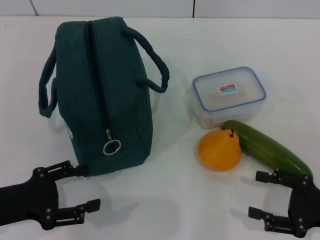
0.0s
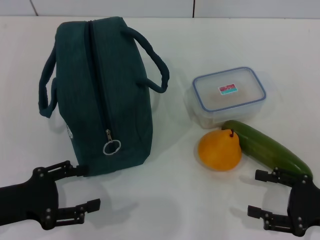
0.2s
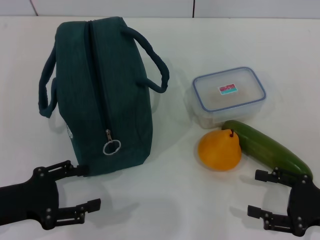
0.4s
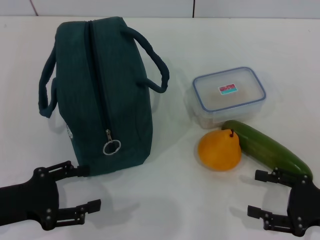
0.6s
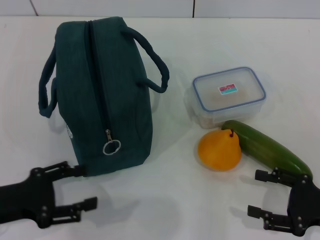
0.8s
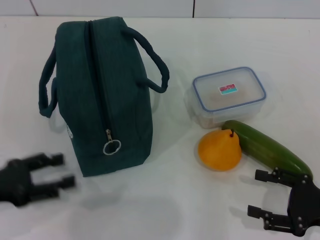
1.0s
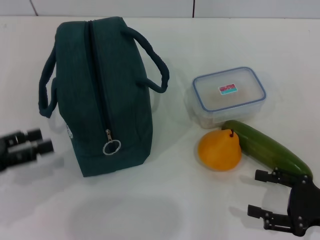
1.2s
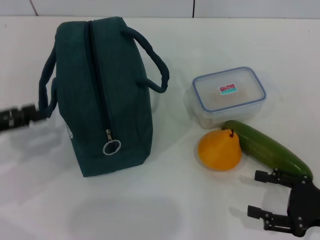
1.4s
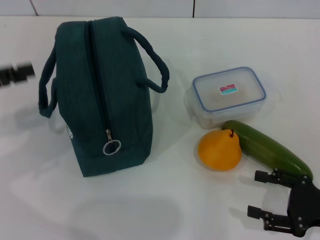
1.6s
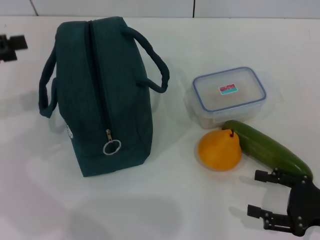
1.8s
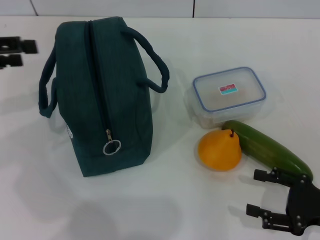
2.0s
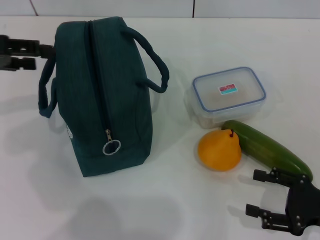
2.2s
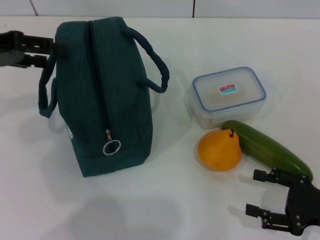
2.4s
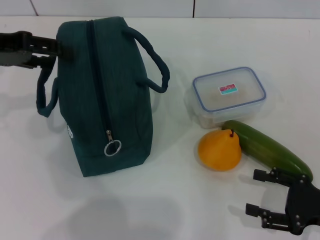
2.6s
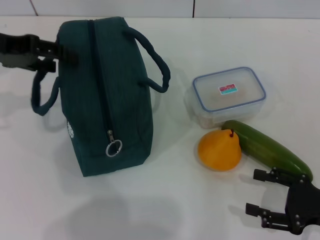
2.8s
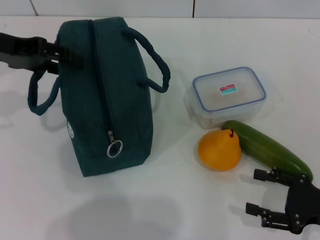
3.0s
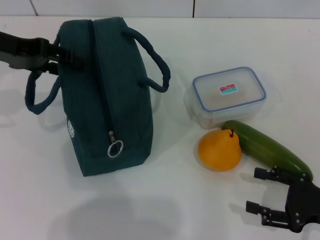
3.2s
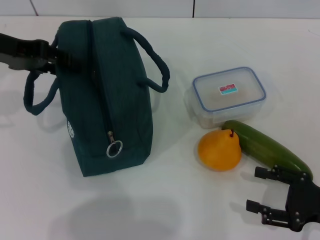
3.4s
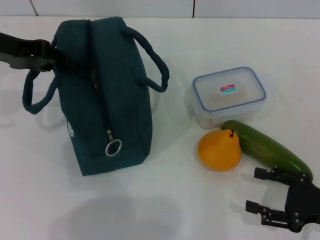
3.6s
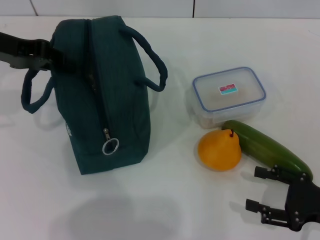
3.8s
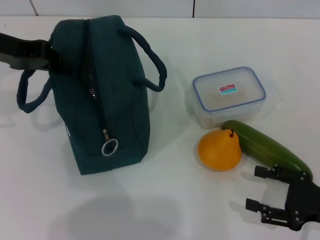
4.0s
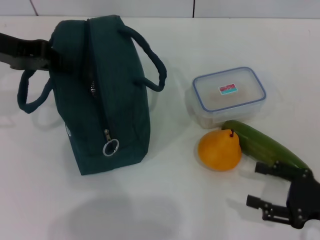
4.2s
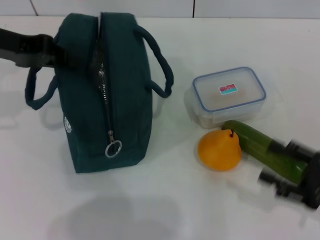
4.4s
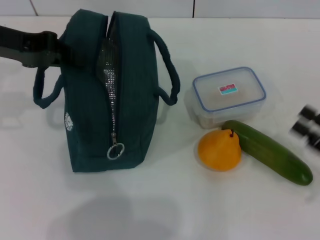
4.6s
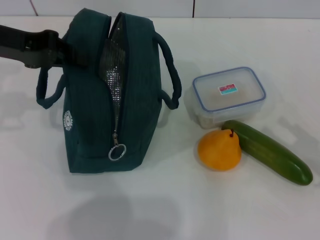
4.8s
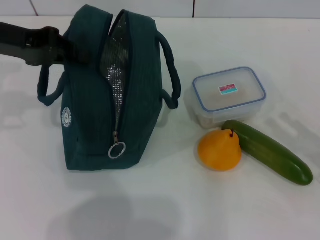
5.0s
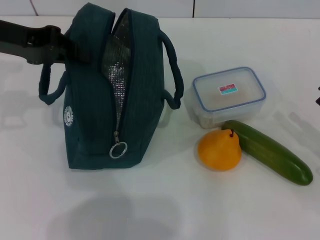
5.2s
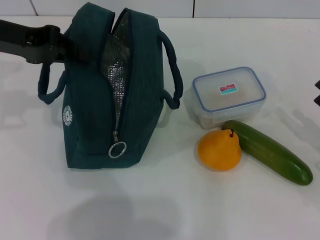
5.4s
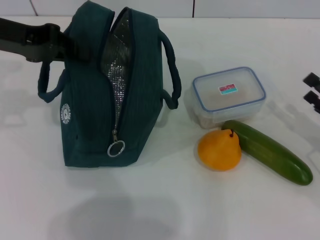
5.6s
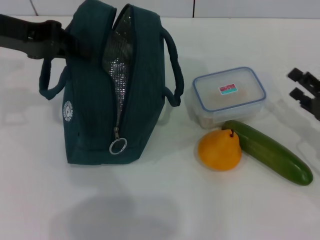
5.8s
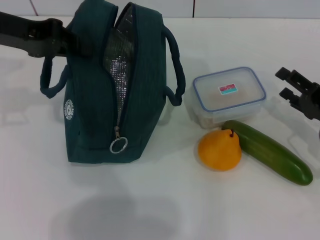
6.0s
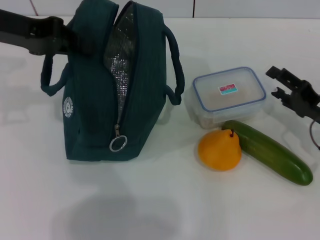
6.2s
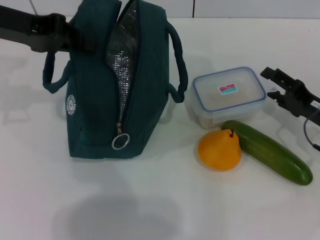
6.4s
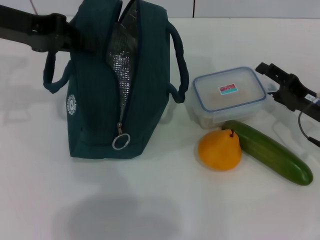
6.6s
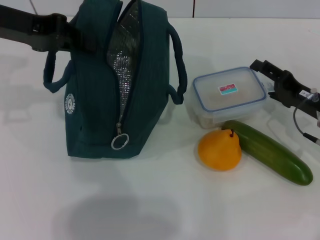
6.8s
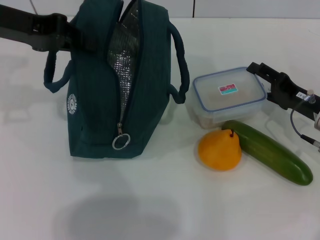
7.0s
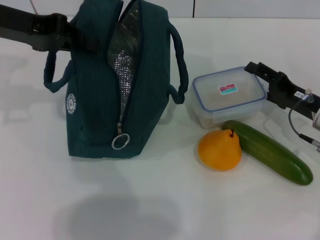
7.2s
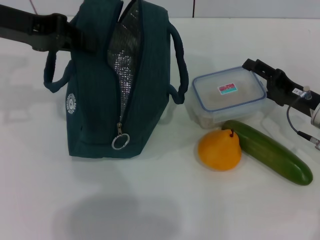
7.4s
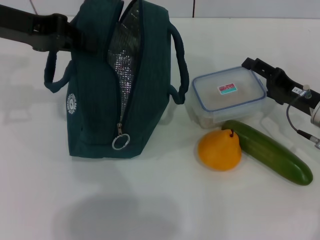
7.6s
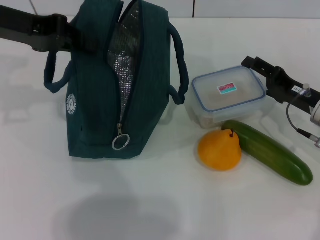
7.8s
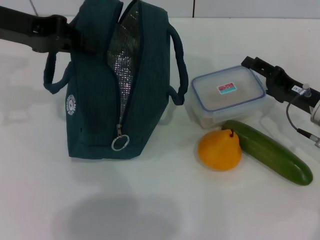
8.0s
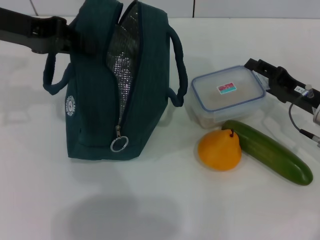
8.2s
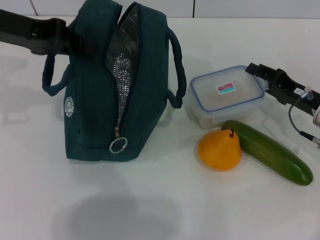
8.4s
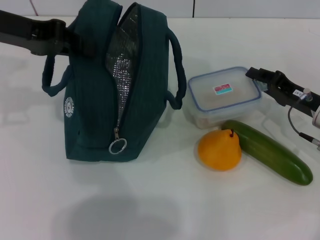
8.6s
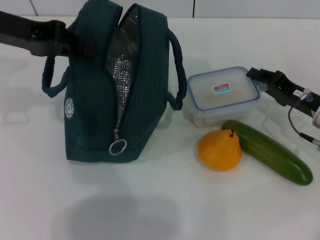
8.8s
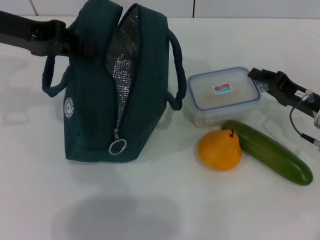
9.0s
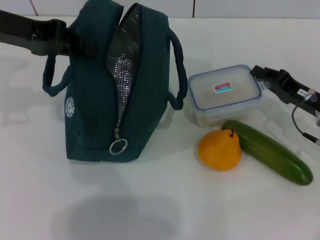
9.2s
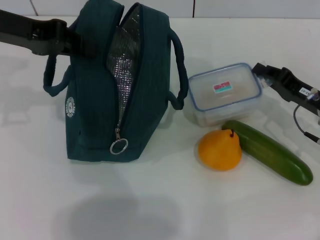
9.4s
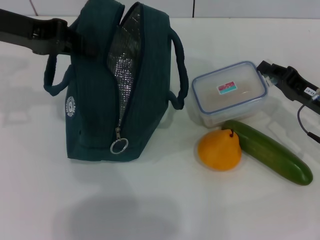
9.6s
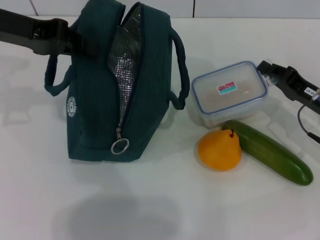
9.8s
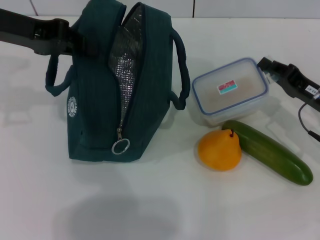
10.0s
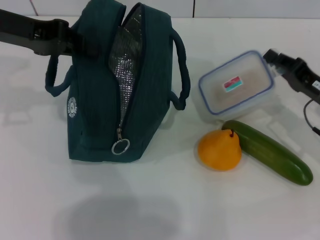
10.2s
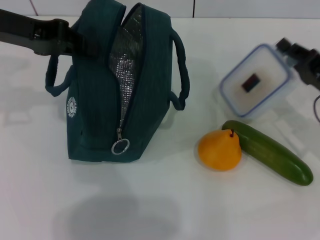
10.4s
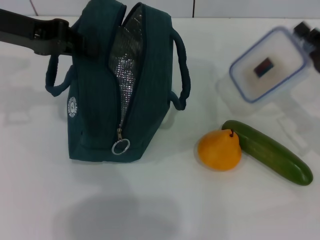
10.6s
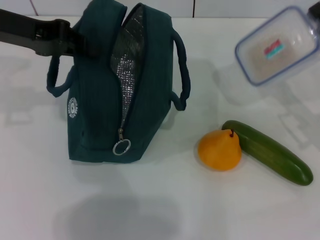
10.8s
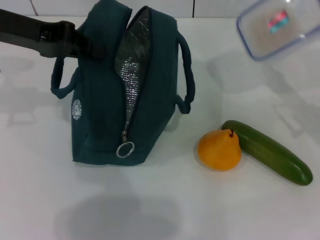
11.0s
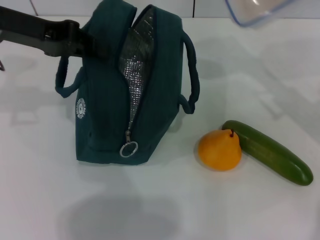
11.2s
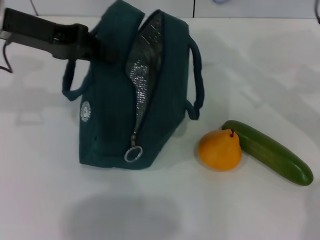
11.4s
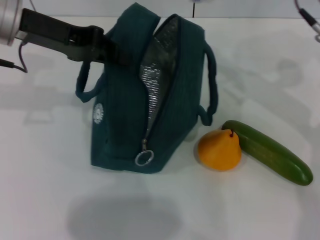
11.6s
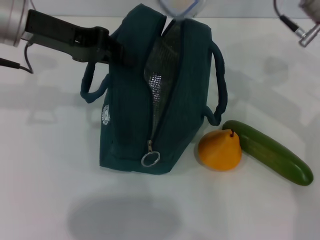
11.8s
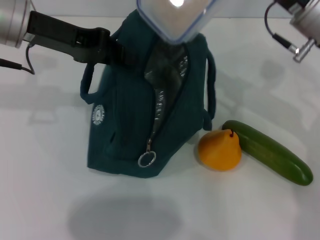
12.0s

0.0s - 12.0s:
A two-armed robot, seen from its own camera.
Step, 0.0s - 4.4s: Hold the lunch bag with your left hand.
Step, 4.6s - 10.0s: Pick up the lunch box with your right hand.
0.0s - 1.6s: The left gripper heads upward, forward and to the left, covering roughly 15 cm.
1.6s - 3.0s: The left gripper moves forward, to the right and upward, approximately 15 cm.
3.0s - 4.4s: The left gripper closes up.
4.4s - 6.0s: The right gripper shifts some 10 cm forward.
6.0s - 7.6s: The right gripper shifts by some 5 cm.
7.6s - 9.0s: The right gripper closes up.
9.0s - 10.4s: There are only small adjustments of the grippers.
10.4s - 12.0s: The right gripper is displaced upward, to the left and forward by some 15 cm.

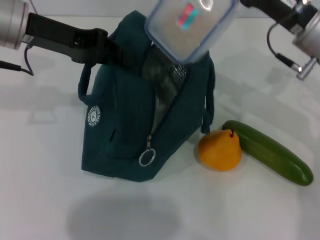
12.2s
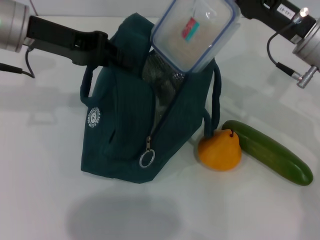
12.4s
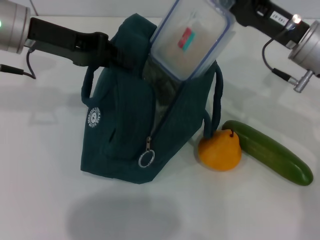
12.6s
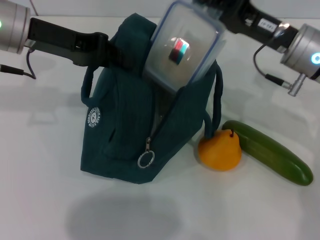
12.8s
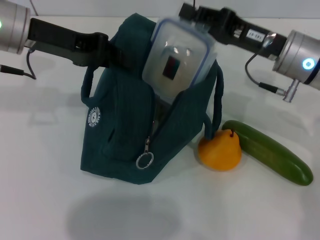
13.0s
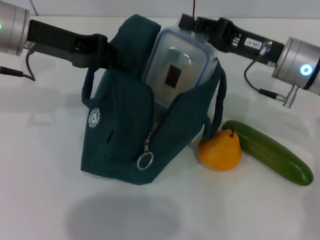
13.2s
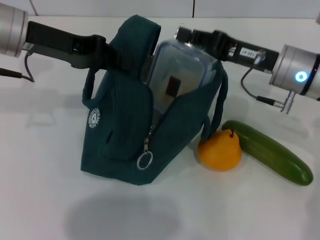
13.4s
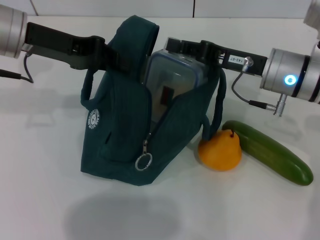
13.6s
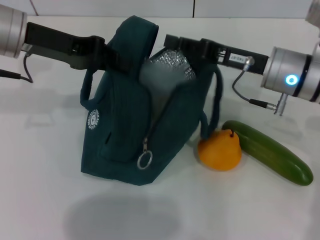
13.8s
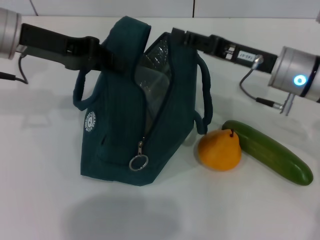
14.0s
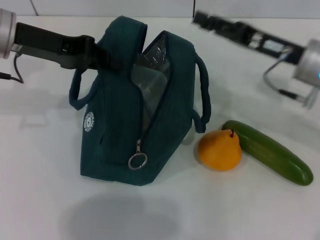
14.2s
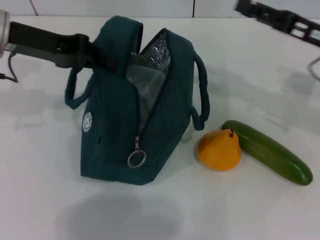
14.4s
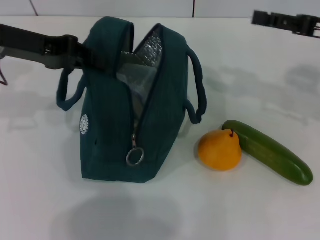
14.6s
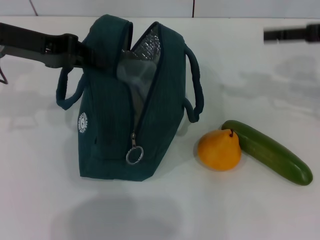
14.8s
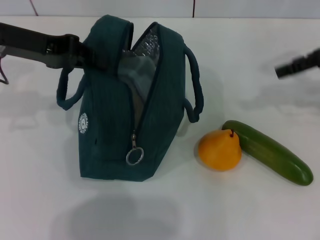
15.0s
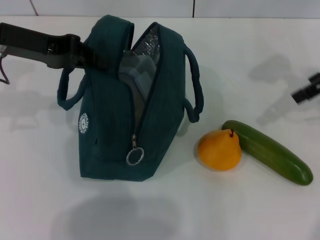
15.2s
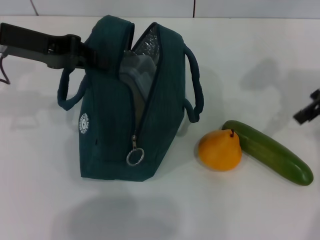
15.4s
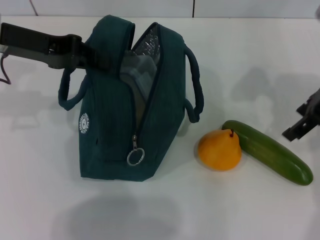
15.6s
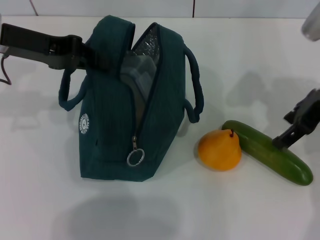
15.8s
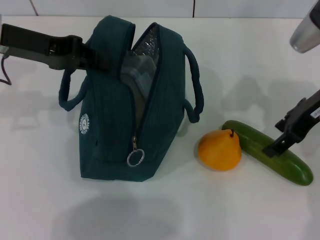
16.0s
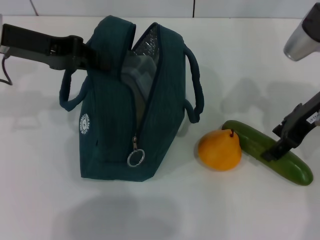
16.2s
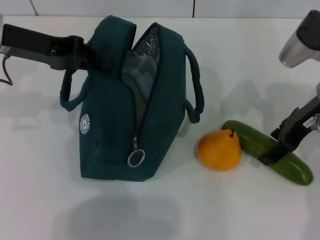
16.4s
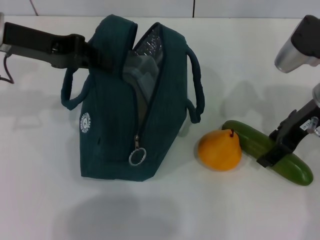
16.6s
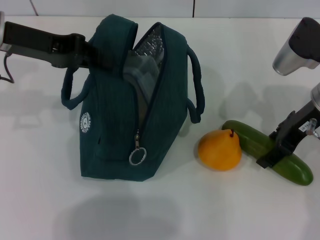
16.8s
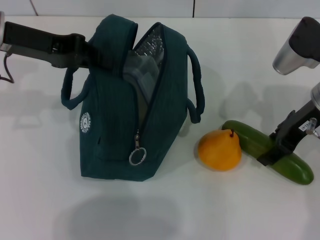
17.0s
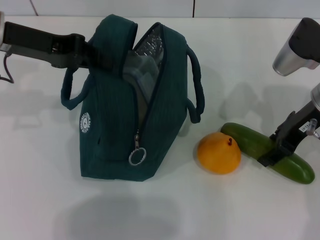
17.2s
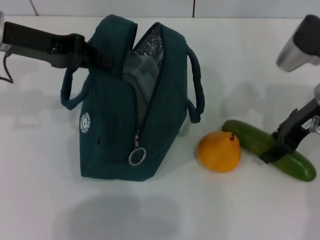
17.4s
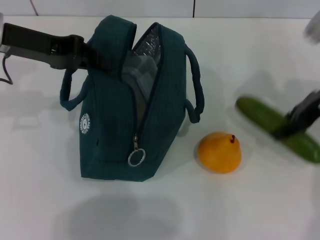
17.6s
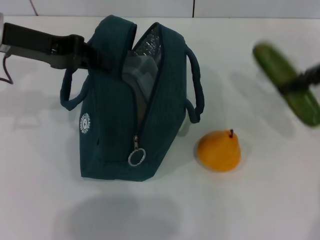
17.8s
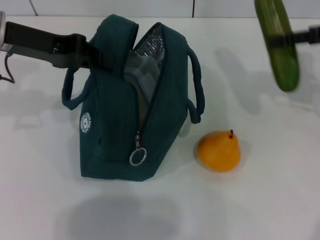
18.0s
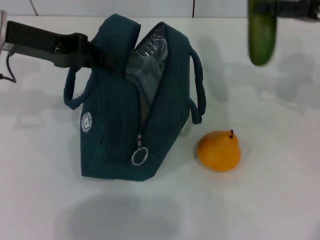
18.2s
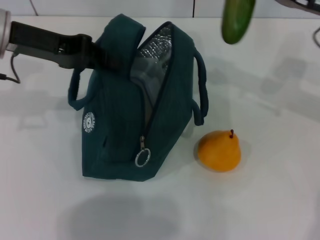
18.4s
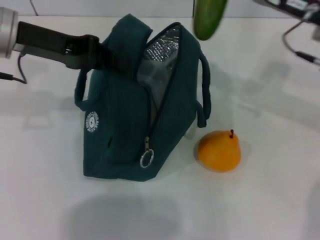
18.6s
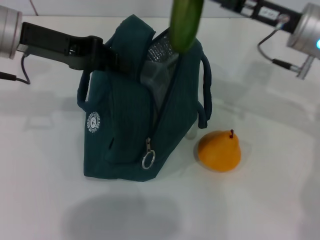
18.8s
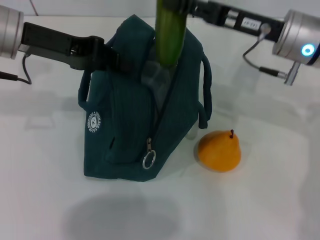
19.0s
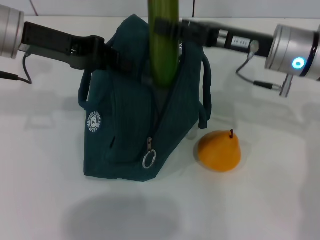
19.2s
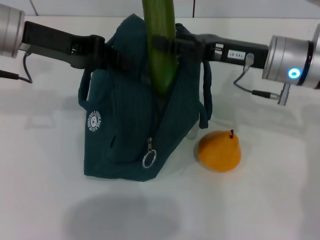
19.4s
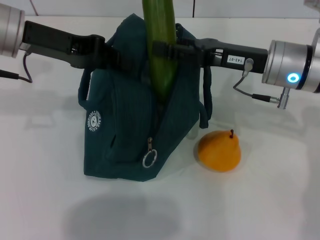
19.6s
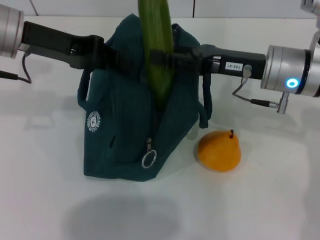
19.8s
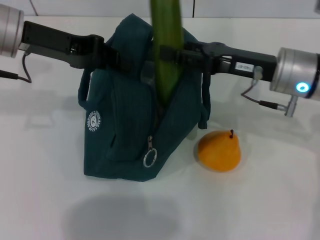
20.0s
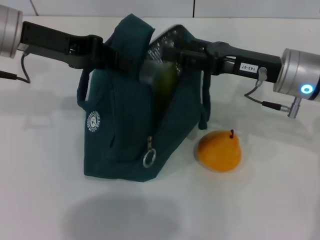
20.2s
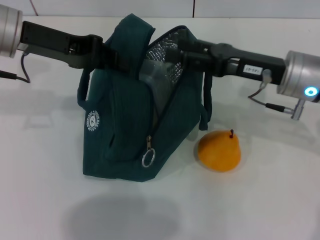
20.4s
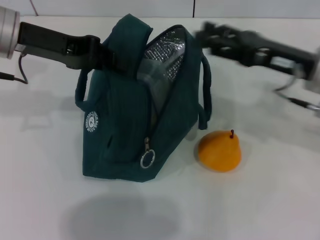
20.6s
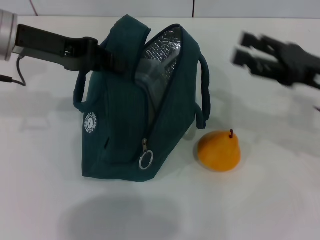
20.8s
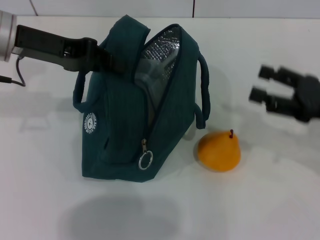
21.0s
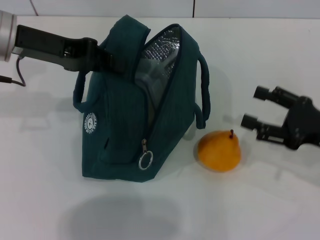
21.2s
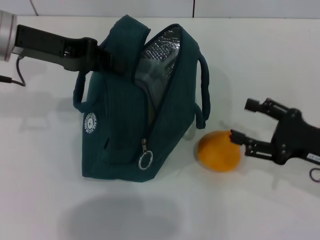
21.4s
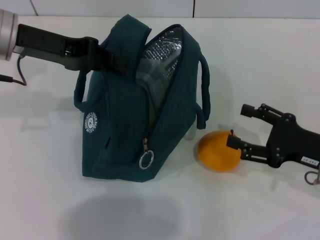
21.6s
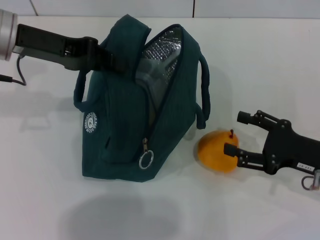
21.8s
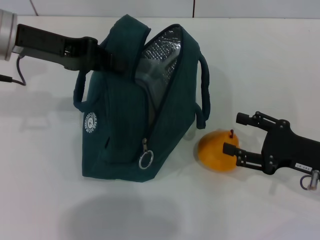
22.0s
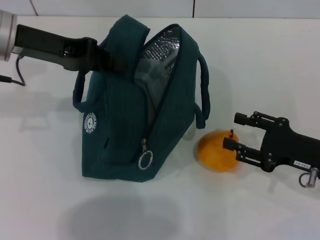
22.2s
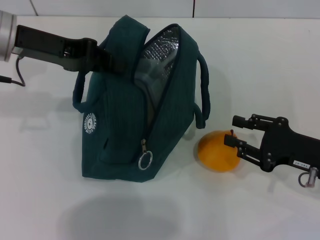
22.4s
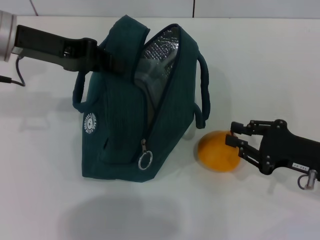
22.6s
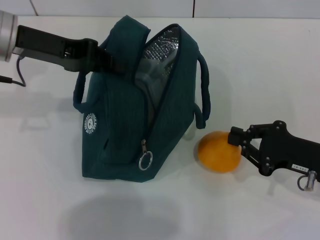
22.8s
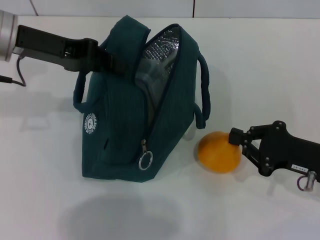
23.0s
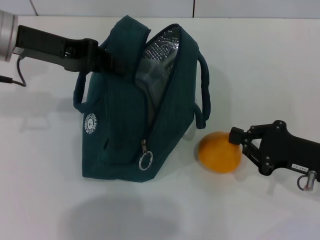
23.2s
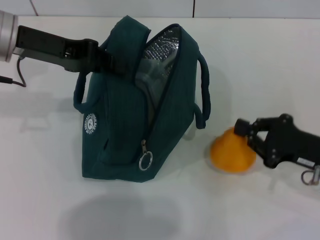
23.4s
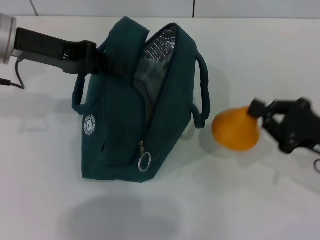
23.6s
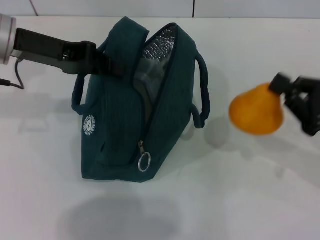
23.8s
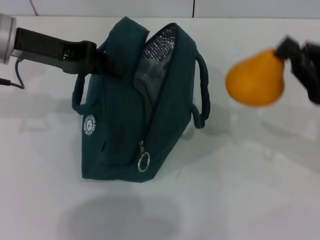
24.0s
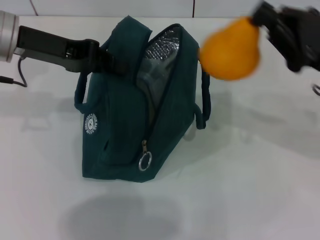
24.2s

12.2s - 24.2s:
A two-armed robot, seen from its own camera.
Step, 14.0s - 17.2s: Pick up the cucumber with your right hand.
Step, 17.4s - 20.2s: Put the cucumber into the lunch bag with your right hand.
Step, 20.4s - 23.2s: Grab the pear with your right hand.
13.8s - 15.2s: The right gripper goes approximately 15 cm to the right and upward, and opens up.
15.2s - 16.6s: The right gripper is displaced downward and to the left by roughly 10 cm.
16.6s - 18.2s: The right gripper shifts about 10 cm to the right and upward.
18.2s - 19.8s: The right gripper goes some 15 cm to the left and downward.
19.8s - 21.2s: The right gripper is displaced to the right, backward and downward by some 15 cm.
21.2s - 22.6s: The right gripper closes.
22.6s - 24.2s: The right gripper travels upward by about 10 cm, and closes its fingers.
